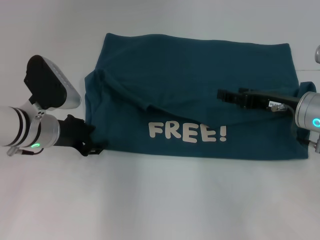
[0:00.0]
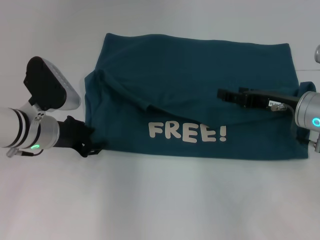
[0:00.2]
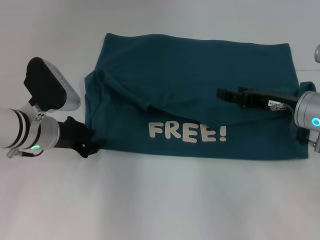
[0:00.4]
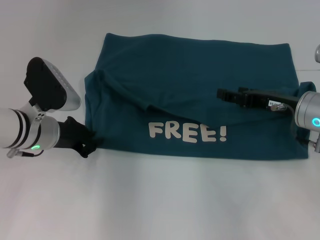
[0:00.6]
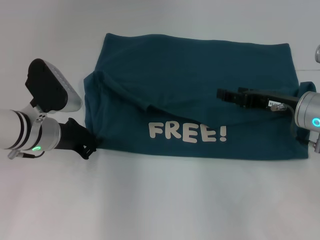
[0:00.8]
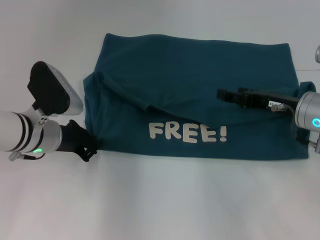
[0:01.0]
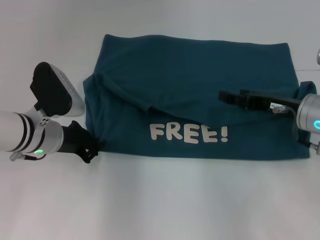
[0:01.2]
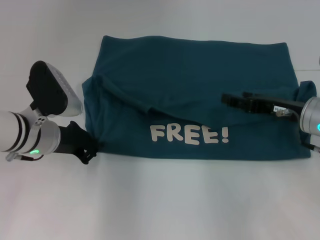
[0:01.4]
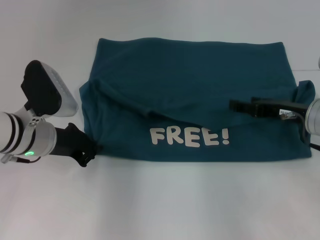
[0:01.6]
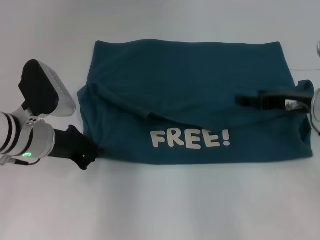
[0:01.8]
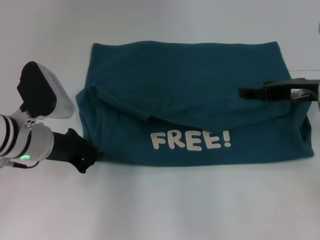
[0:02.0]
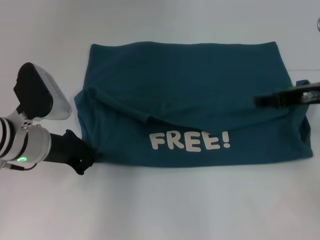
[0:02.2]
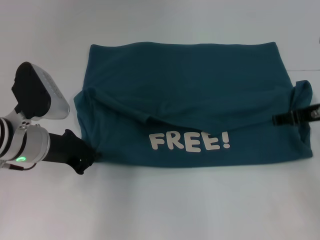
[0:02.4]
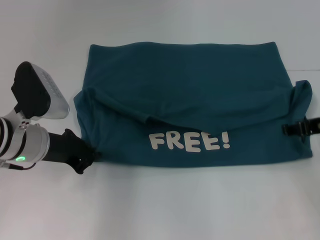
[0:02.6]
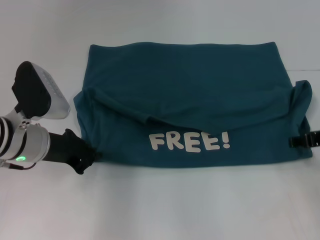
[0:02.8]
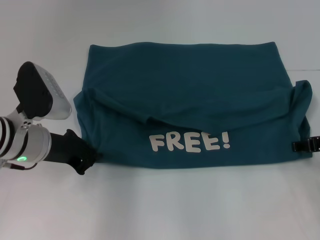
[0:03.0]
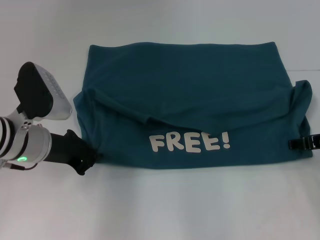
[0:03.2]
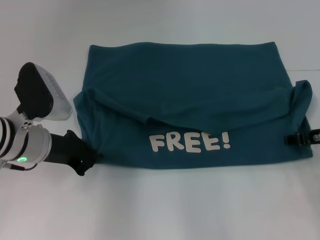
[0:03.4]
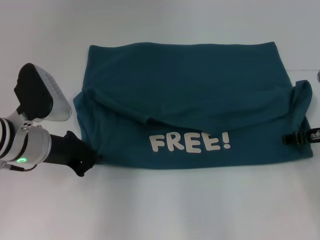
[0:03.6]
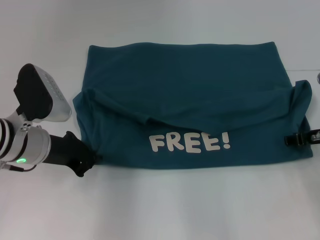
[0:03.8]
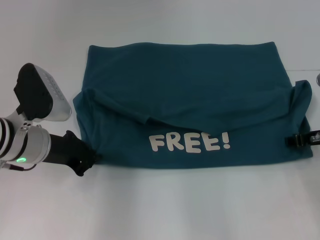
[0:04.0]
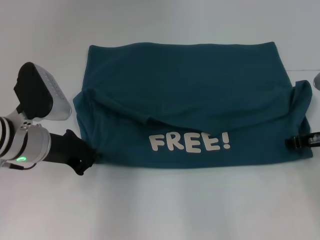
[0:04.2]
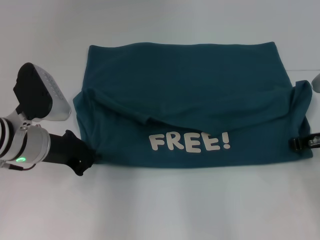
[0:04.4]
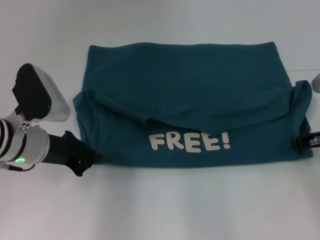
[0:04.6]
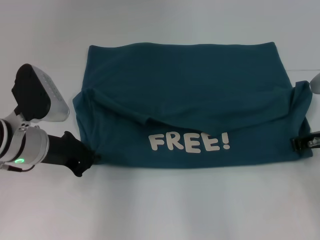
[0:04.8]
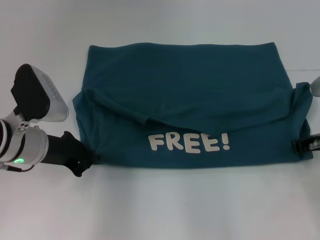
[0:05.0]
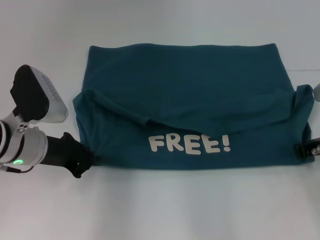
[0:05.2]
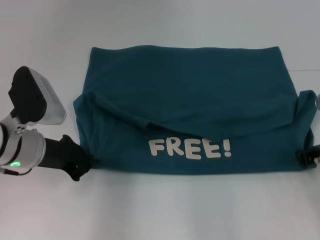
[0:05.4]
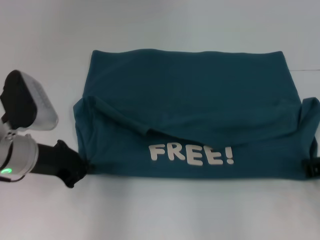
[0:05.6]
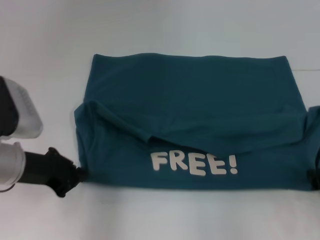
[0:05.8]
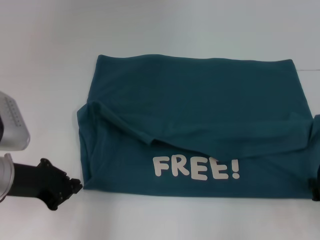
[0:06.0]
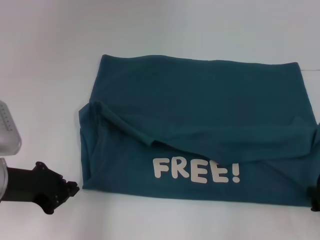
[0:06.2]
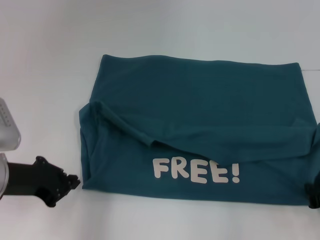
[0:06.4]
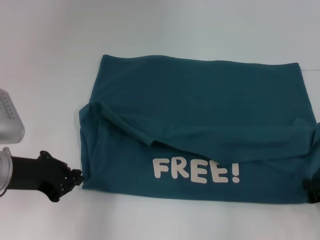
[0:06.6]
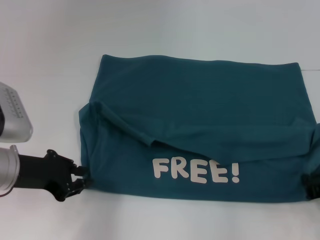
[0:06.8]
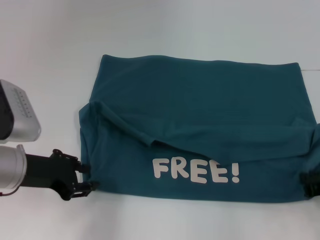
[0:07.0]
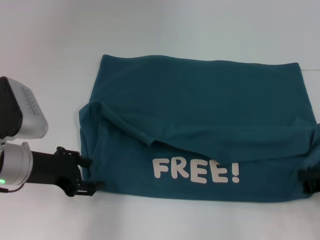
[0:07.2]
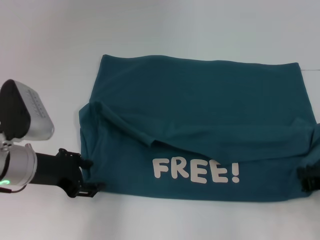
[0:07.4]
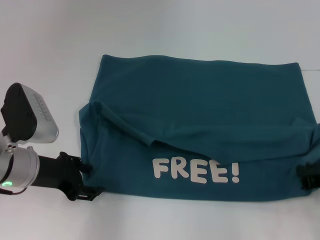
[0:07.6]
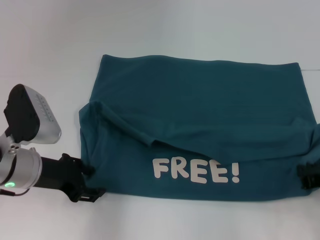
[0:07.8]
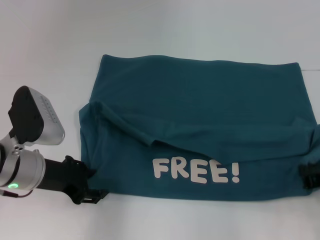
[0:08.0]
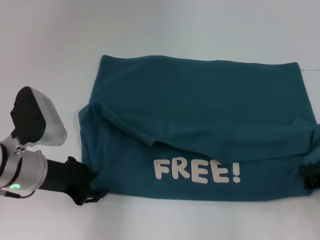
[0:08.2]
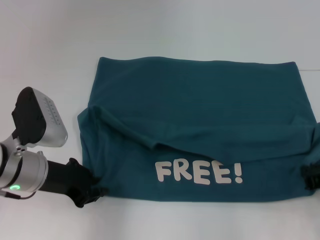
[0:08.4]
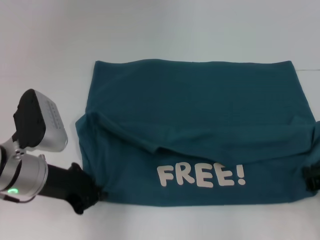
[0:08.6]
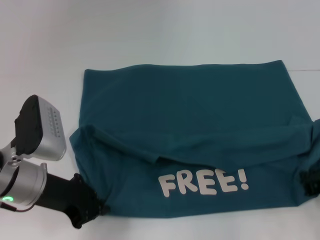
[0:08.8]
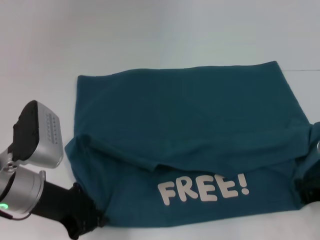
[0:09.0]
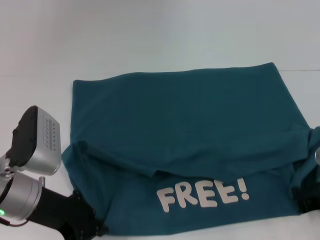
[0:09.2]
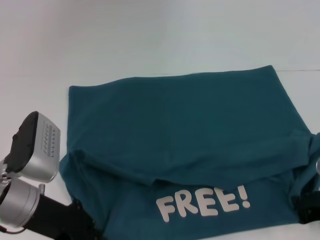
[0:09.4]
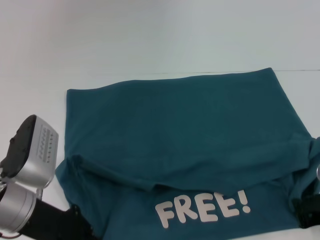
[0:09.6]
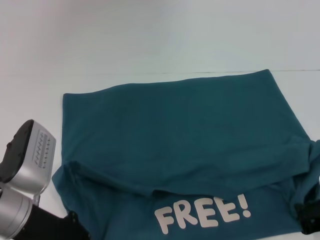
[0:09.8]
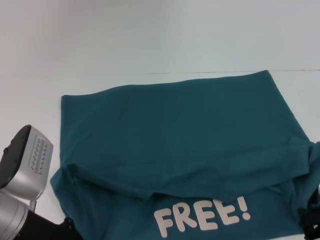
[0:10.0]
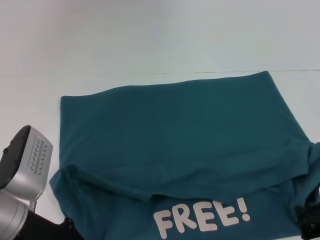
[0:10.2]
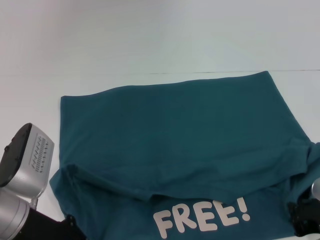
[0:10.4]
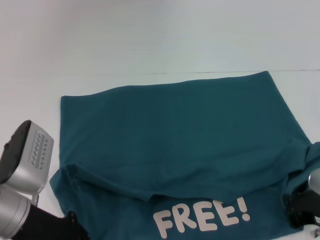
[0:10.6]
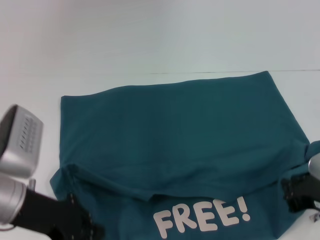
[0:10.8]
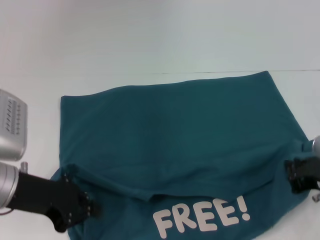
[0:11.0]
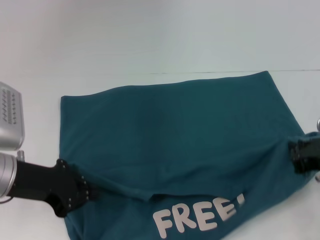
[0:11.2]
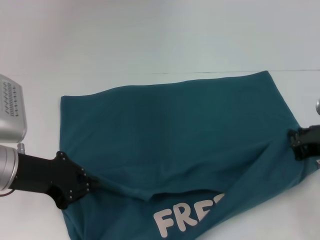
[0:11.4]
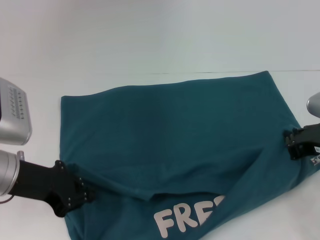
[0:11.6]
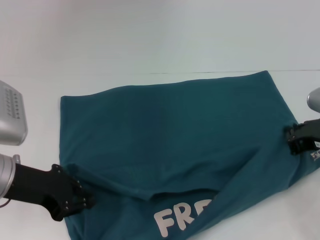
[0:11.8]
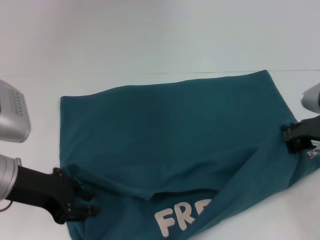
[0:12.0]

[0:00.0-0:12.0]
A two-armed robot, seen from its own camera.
Step, 0:00.0 to 0:10.2: Pull the clothes with your left hand.
Step, 0:00.0 to 0:10.2: Pull the clothes with your right hand.
0:00.0 to 0:01.6: The left gripper closes up.
0:01.6 to 0:03.0: The right gripper ends up about 5 cm from where it was.
0:04.4 to 0:06.0: The right gripper is displaced backward by some 10 cm, and closes up. The left gripper shifts about 5 cm backward.
0:06.0 to 0:07.6: The left gripper opens up.
0:07.6 to 0:09.0: The left gripper closes its fingers.
0:09.0 to 0:10.4: The right gripper shifts roughly 5 cm backward.
0:10.4 to 0:12.0: The right gripper is displaced forward by approximately 10 cm.

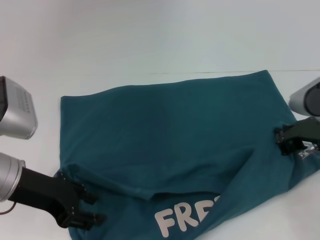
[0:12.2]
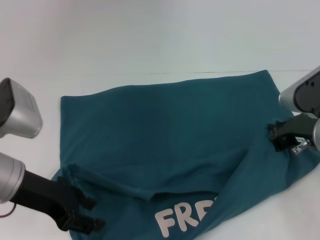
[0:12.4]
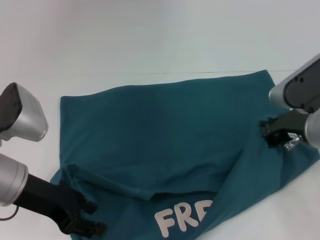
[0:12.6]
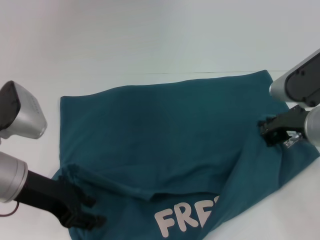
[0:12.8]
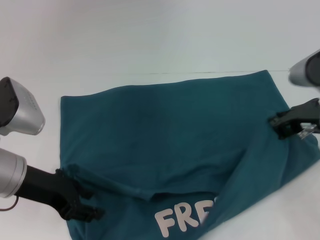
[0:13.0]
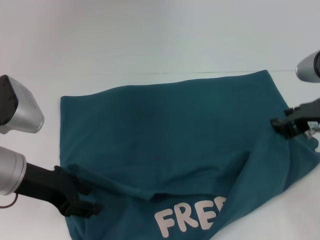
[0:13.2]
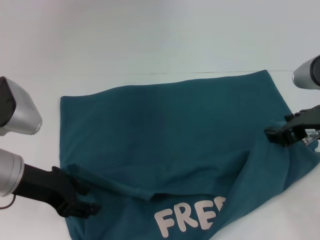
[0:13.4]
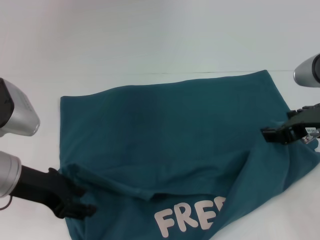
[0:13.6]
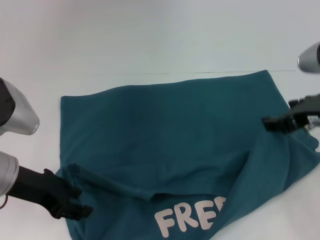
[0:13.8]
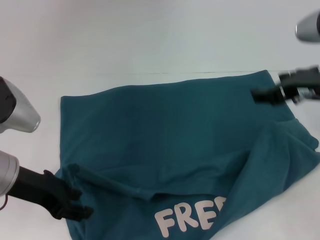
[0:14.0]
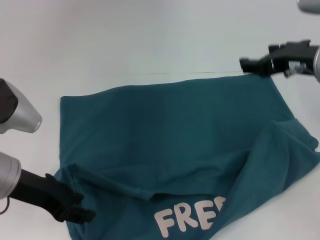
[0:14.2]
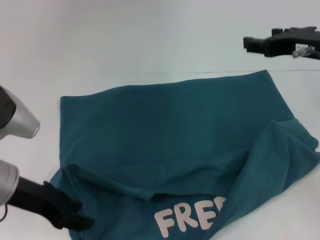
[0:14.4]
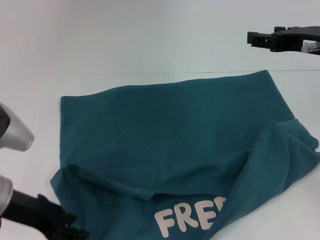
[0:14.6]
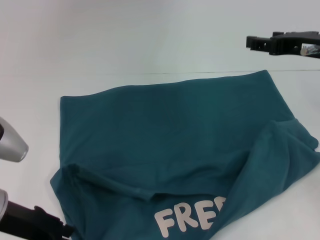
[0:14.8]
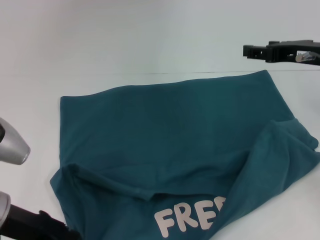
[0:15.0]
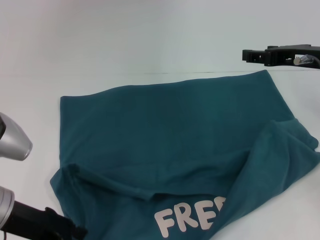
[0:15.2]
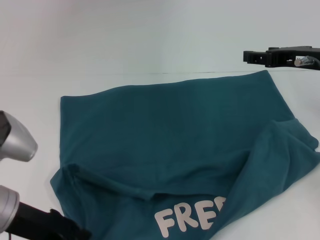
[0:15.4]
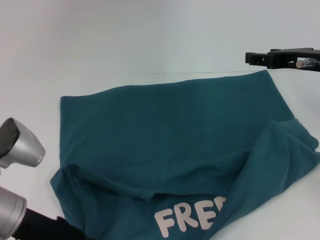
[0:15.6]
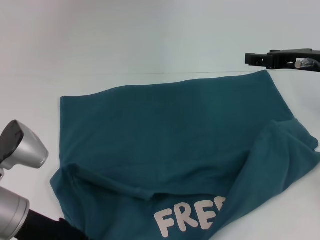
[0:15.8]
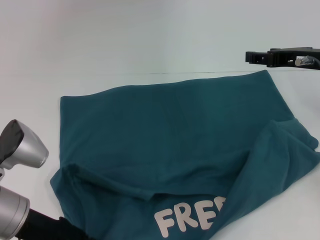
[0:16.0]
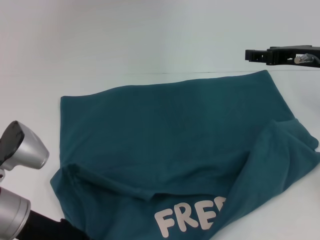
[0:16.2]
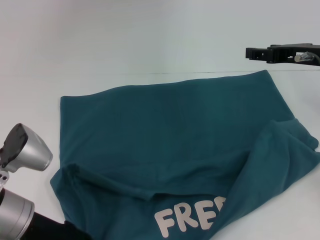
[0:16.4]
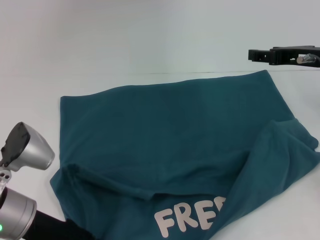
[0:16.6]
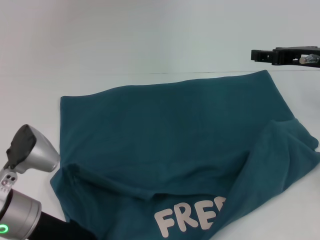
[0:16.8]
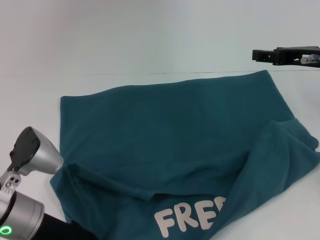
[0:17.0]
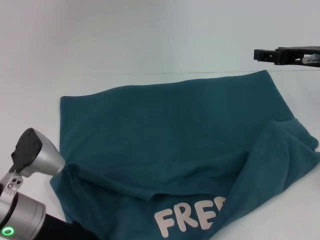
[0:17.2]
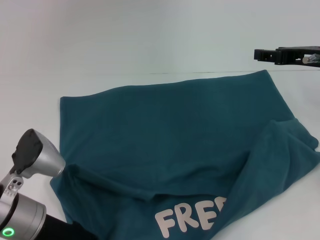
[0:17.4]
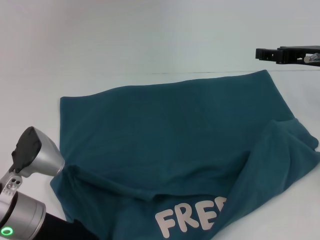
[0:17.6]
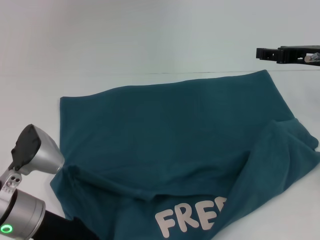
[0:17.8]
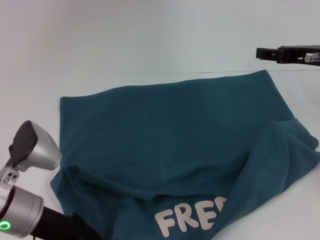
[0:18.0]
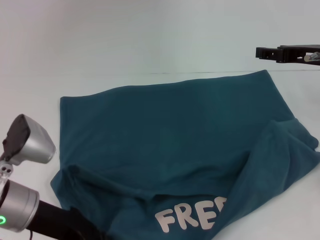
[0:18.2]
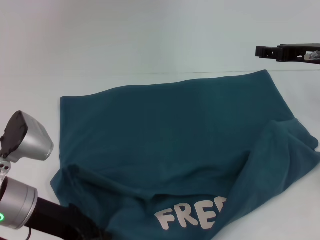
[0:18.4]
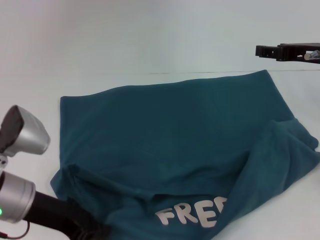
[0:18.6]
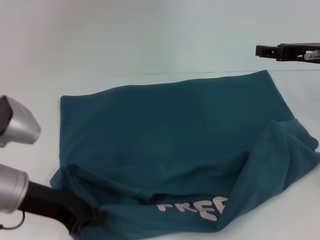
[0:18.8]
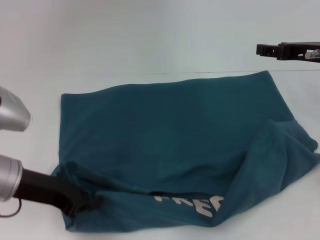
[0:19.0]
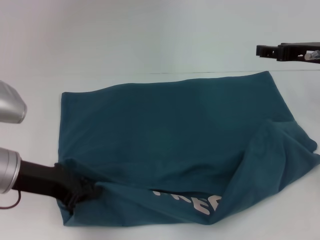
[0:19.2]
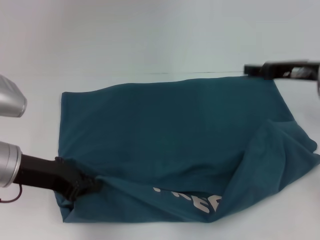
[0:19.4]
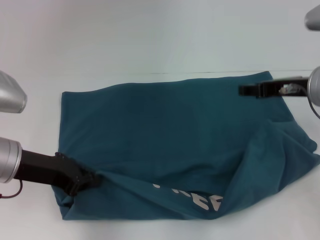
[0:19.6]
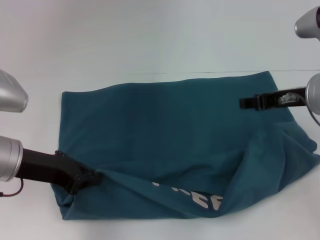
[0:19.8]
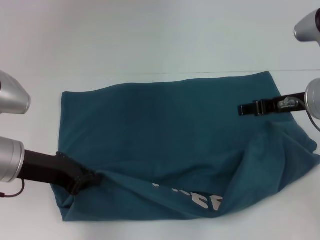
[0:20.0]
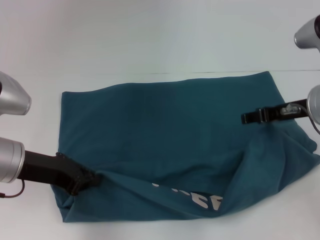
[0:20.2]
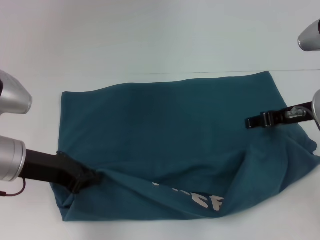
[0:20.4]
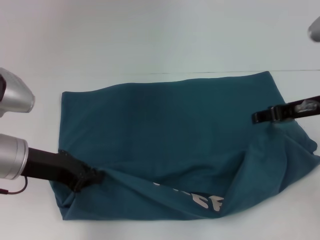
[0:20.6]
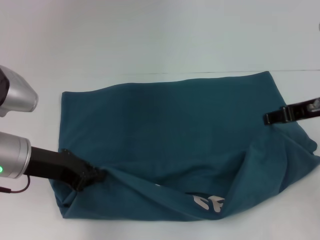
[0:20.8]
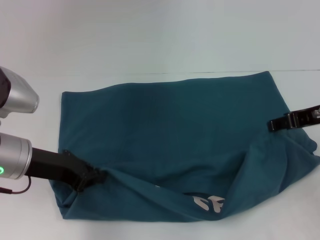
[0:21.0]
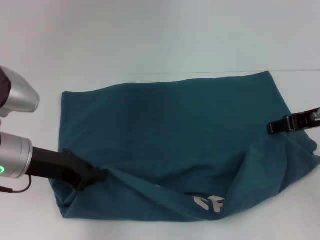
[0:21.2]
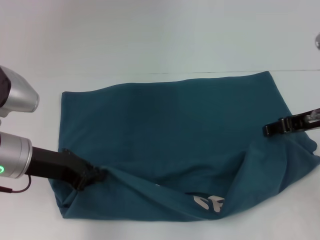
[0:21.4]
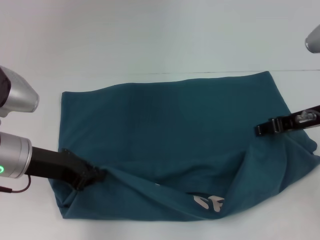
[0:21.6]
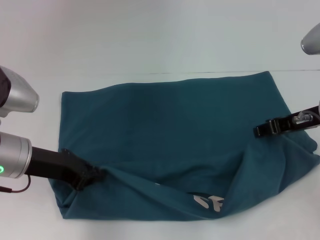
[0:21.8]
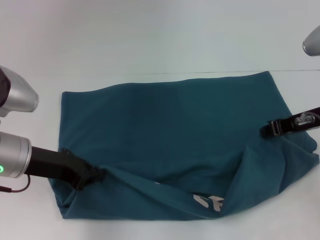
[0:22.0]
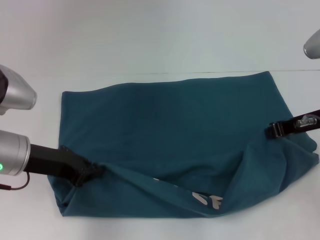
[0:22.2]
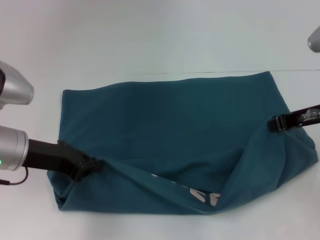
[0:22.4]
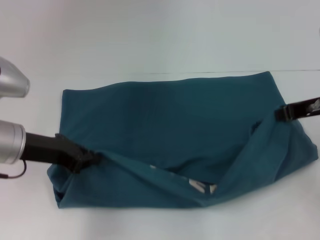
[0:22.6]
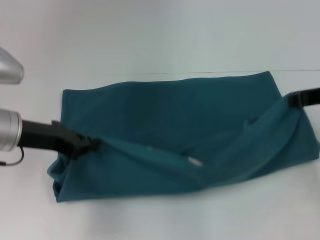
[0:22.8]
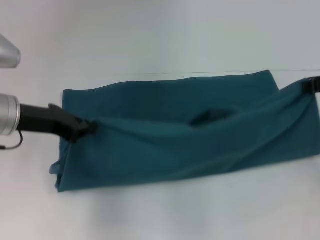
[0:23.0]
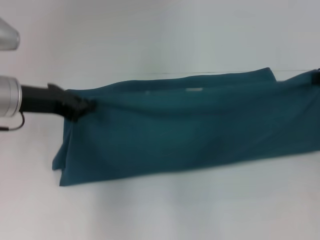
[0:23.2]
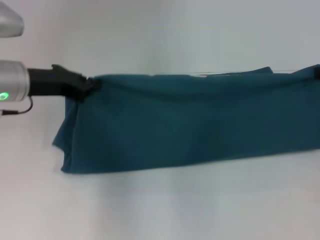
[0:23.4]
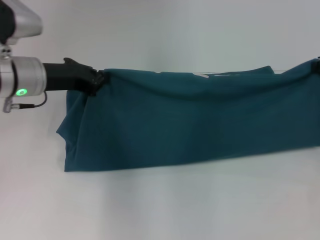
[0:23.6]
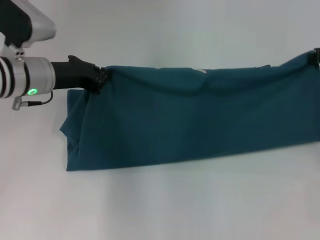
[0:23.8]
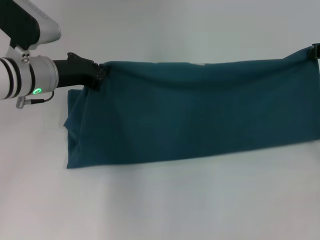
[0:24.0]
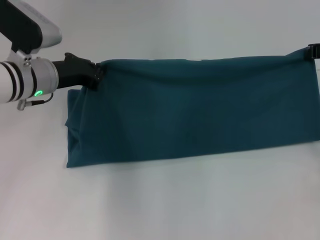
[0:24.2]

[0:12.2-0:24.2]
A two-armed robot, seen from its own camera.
0:12.2 to 0:13.8: The right gripper travels upward by approximately 5 cm, and opens its fingers.
0:13.8 to 0:15.2: The right gripper is displaced forward by approximately 5 cm.
0:15.2 to 0:16.6: The grippers make only small movements.
0:16.6 to 0:18.2: The left gripper closes its fingers.
0:18.2 to 0:19.8: The right gripper heads to the left, covering about 5 cm; the left gripper moves some 5 cm.
0:19.8 to 0:21.2: The grippers stay close to where they were, moving slightly.
0:21.2 to 0:22.6: The right gripper closes up.
0:22.6 to 0:24.2: The right gripper shifts roughly 10 cm forward and to the right; the left gripper goes roughly 10 cm forward.
